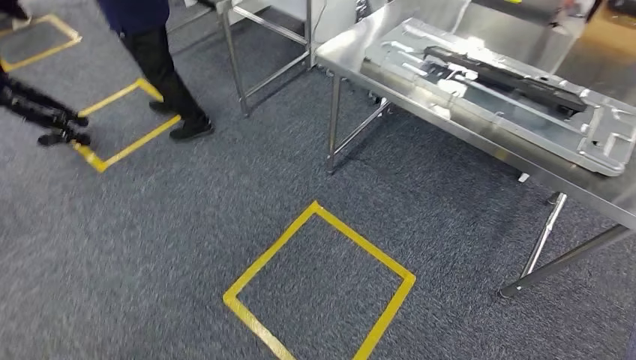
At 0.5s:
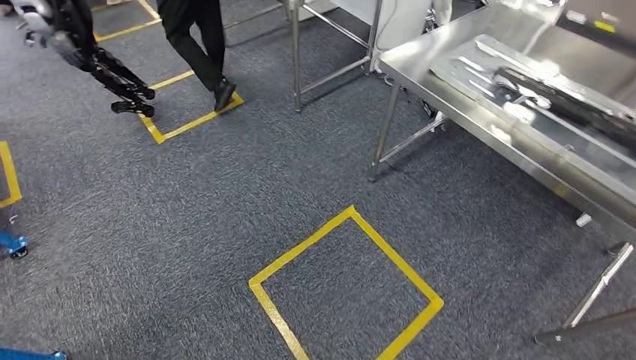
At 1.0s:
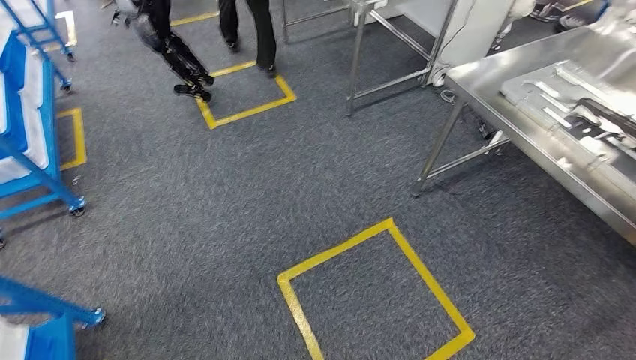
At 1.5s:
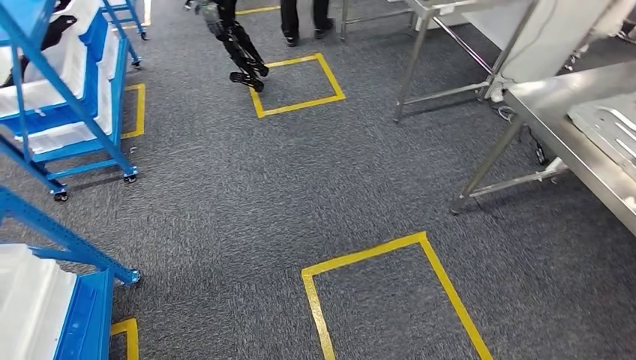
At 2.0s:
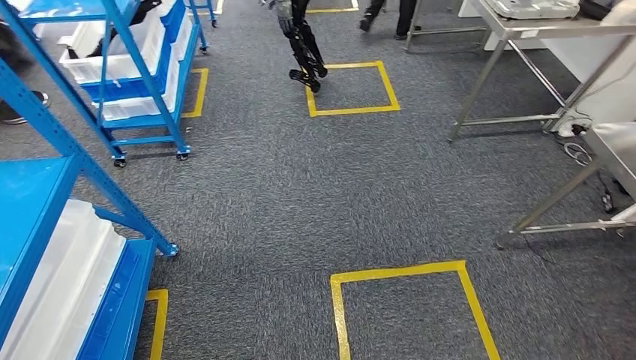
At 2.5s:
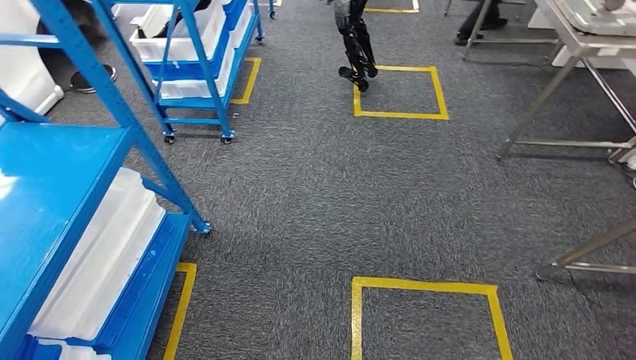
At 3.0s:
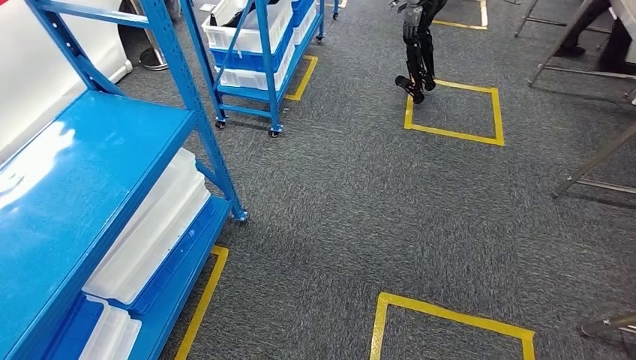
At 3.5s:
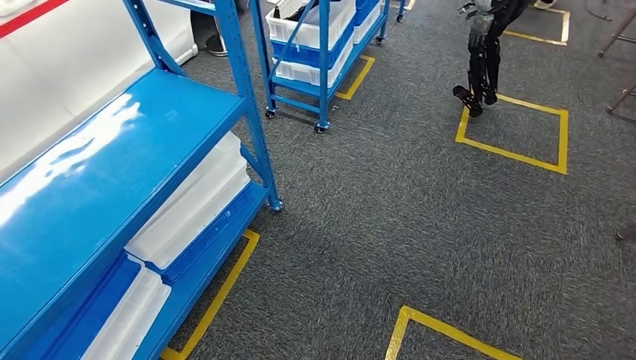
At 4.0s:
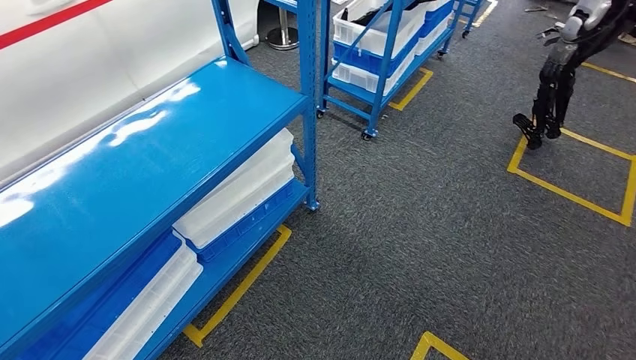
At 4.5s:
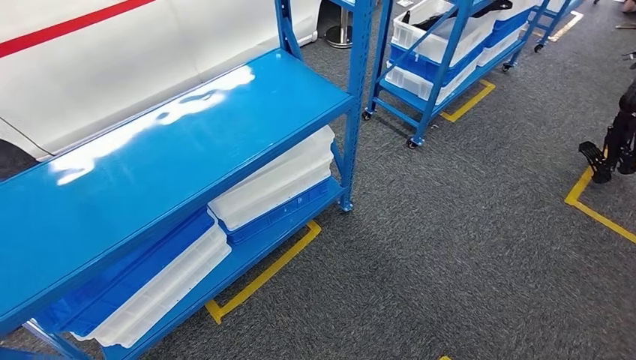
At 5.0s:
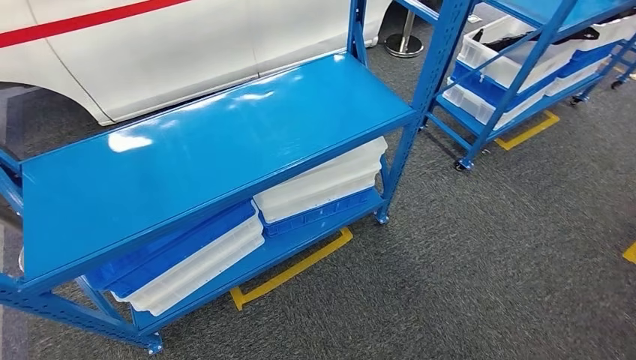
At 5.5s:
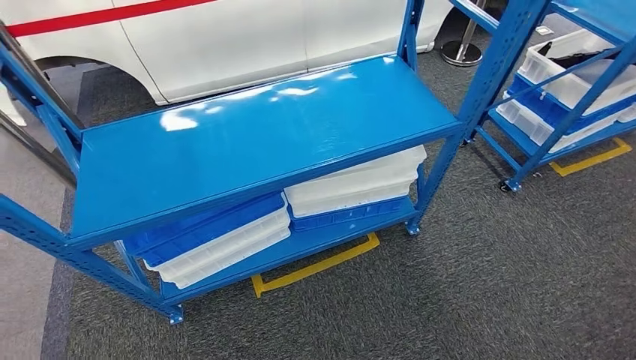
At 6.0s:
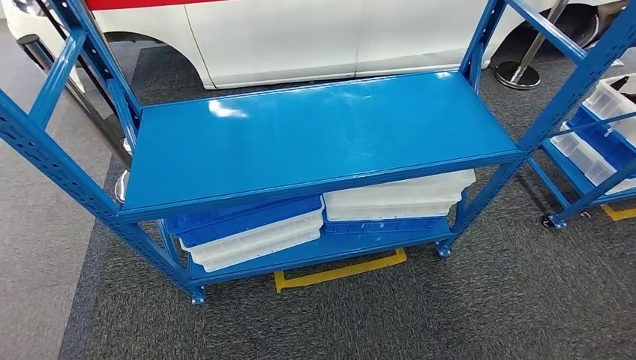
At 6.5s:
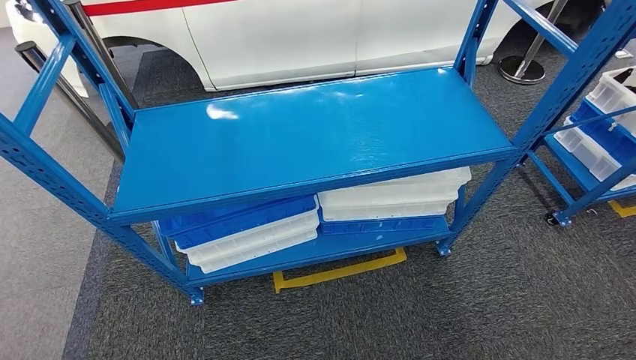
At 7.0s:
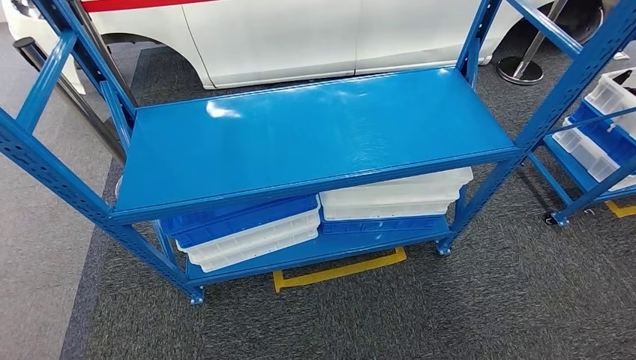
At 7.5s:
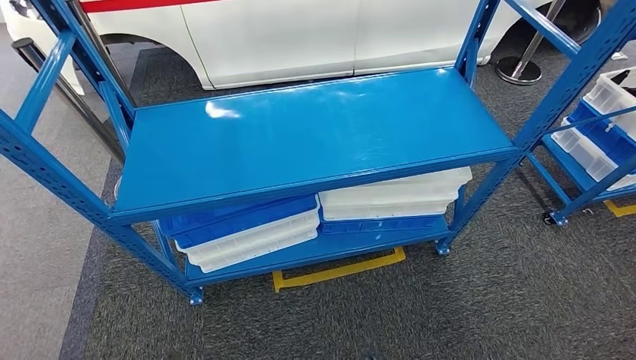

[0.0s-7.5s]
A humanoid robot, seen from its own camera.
Step, 0.0s to 7.5s: Return to the initial position at the shelf.
